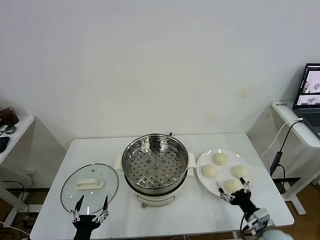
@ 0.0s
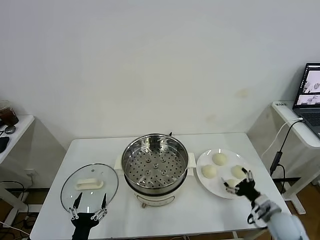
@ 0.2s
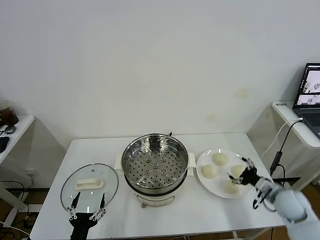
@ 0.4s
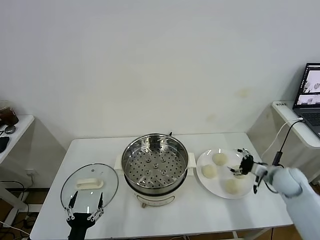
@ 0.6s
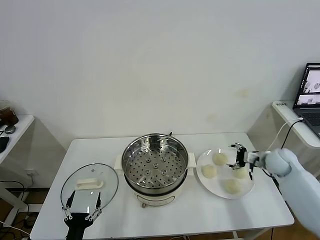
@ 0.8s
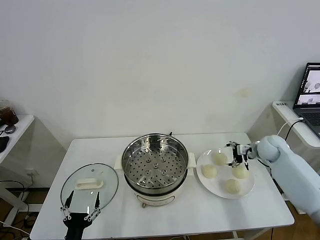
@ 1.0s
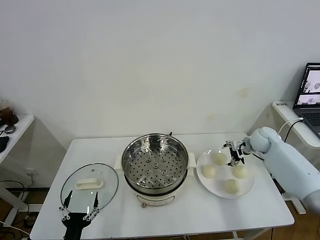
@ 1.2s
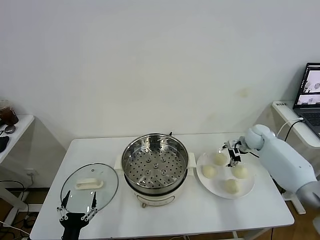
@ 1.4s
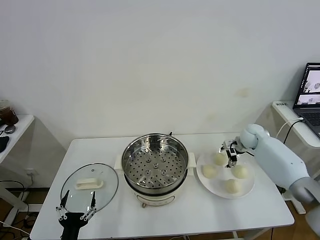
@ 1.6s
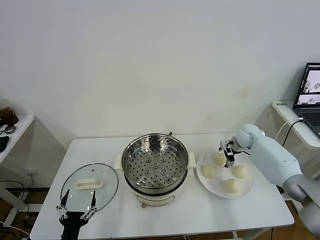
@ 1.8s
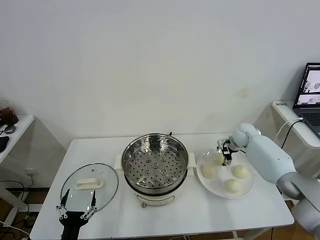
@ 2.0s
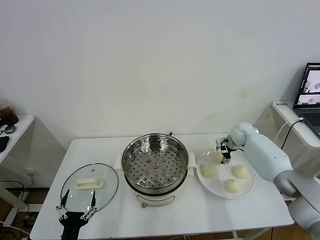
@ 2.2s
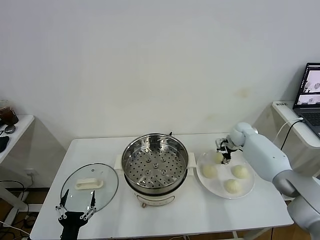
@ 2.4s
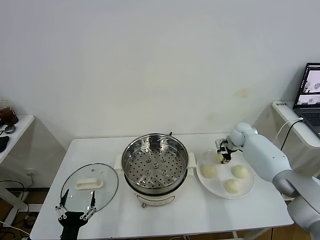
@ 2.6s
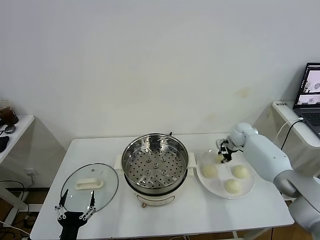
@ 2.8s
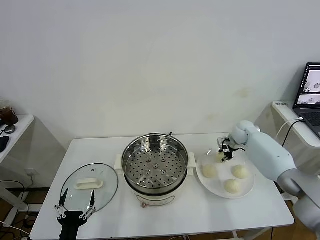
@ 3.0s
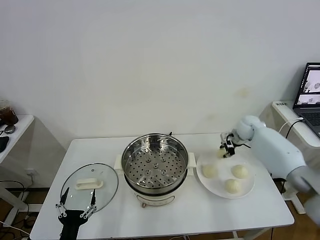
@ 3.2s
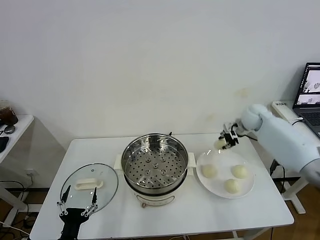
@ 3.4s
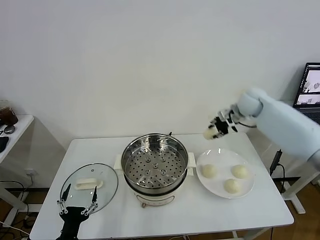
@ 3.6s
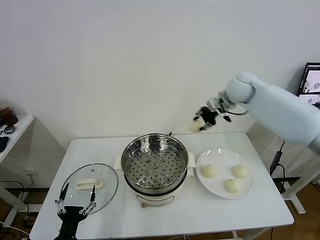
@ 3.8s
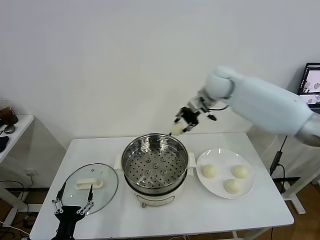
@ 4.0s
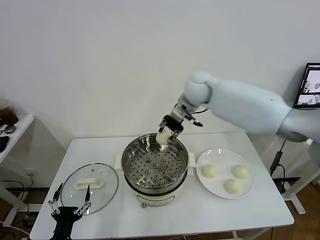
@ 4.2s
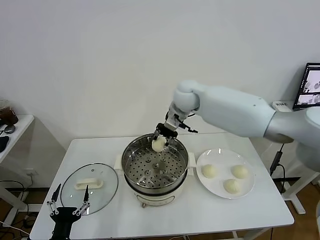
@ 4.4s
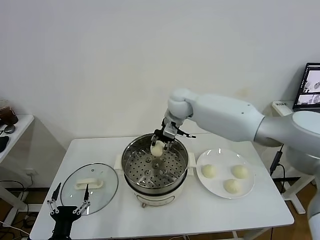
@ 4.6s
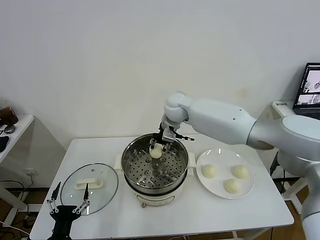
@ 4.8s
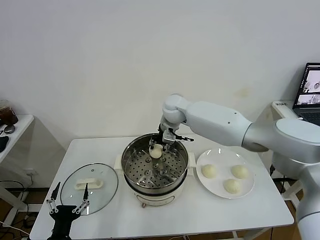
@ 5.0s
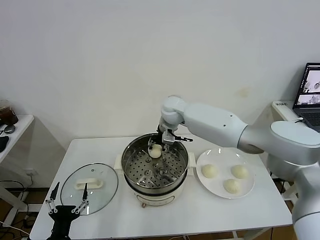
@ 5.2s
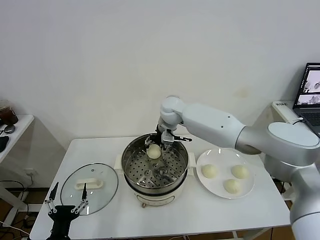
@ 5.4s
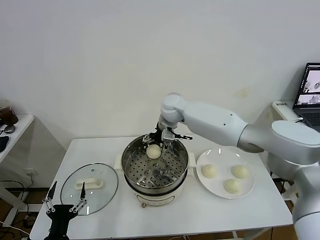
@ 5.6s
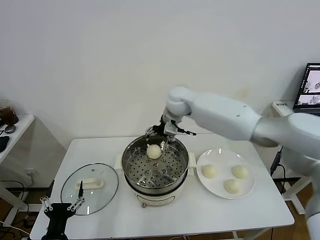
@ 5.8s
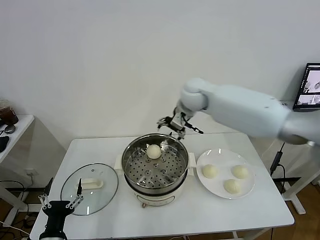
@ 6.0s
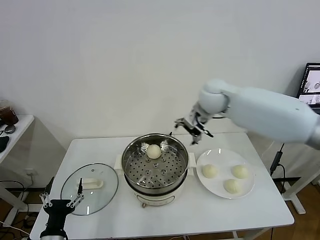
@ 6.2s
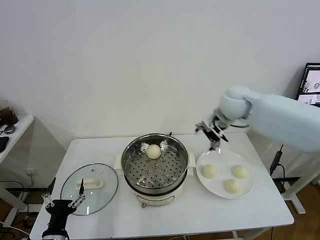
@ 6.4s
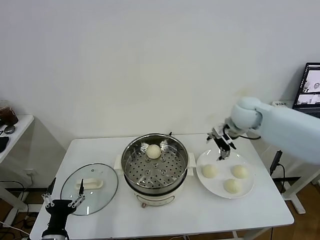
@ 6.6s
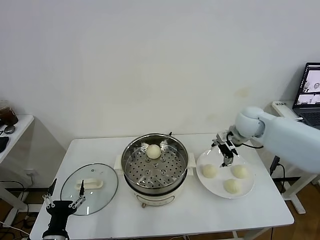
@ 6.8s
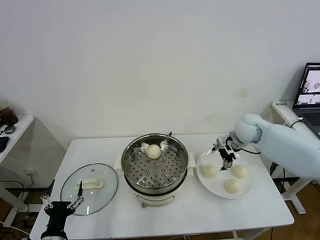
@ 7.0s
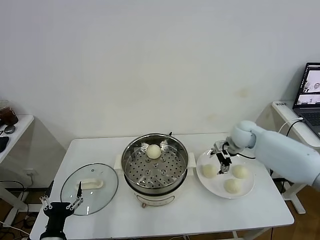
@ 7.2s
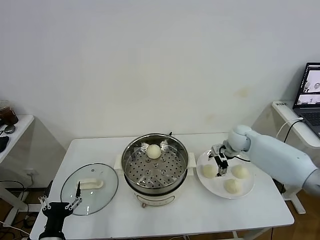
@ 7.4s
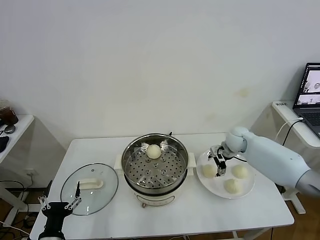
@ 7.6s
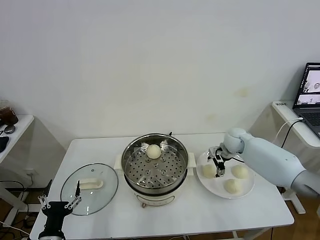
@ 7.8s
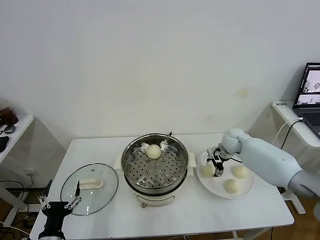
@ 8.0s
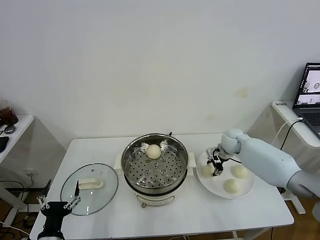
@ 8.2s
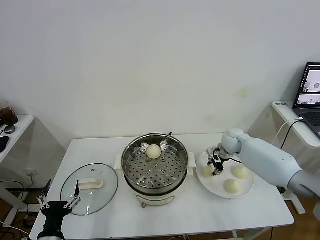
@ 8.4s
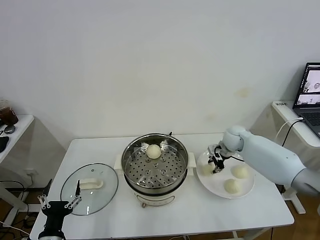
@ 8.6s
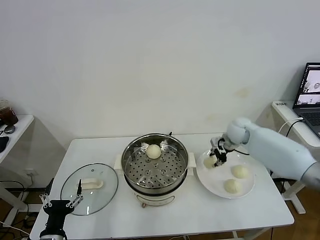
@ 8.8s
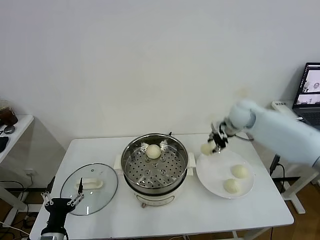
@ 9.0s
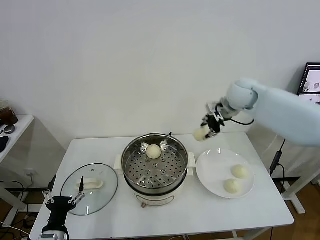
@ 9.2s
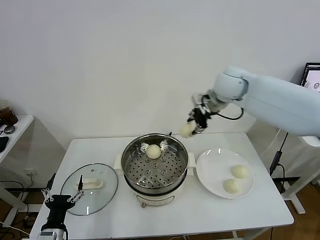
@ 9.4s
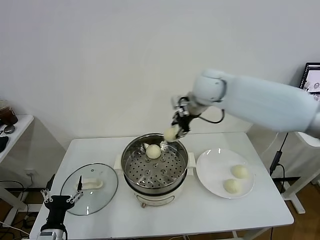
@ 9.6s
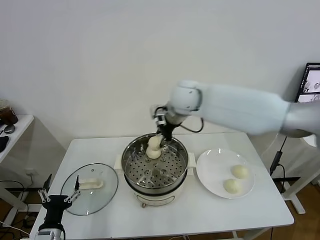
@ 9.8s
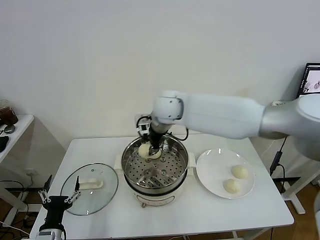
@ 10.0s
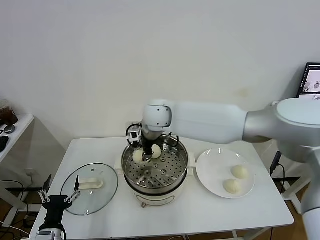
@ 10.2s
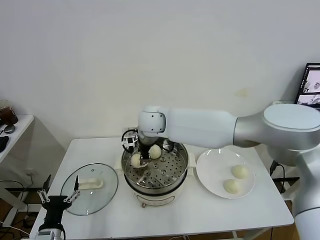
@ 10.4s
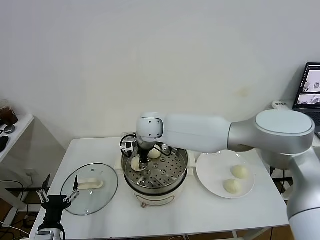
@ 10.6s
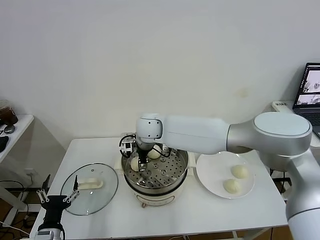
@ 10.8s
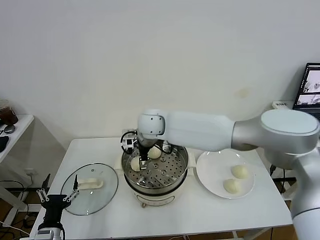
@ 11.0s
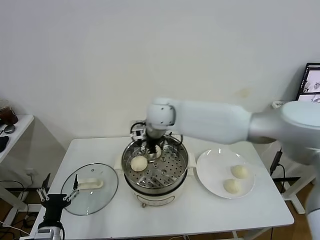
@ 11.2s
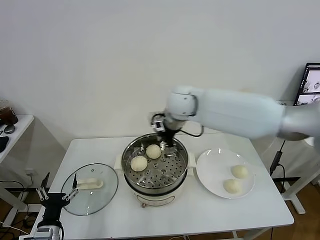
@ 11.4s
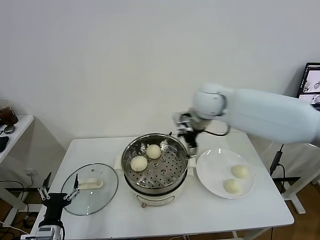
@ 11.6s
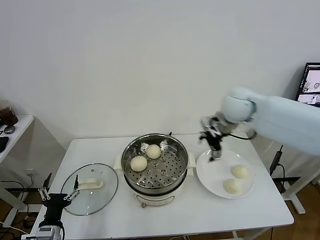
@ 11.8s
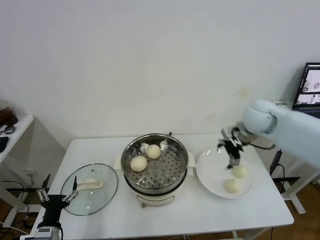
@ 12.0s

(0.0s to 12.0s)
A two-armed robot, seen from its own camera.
Task of the whole recording: take steamed baozi put them in steamer.
Step, 0.0s - 2.8s: Grasp the baozi in the plate with right gripper.
Step, 3.0s - 5.6s: Place the baozi on the steamer with right gripper.
Step, 5.8s - 8.4s: Grasp the baozi in the plate with right gripper.
Step, 8.6s - 11.0s: Place the baozi on the steamer with right gripper.
1.6s - 3.0s: The right gripper closes up.
3.0s - 4.4s: The right gripper goes approximately 35 cm to the left and upward.
4.4s - 6.0s: The right gripper reaches approximately 5 cm downward, then returns, and opens up.
6.0s - 7.6s: The right gripper shifts some 25 cm downward and to the right.
7.6s - 9.0s: The right gripper shifts approximately 10 cm upward, and closes its fingers.
9.0s - 10.4s: The right gripper is displaced to the left by some 30 cm.
10.4s - 12.0s: The right gripper goes roughly 35 cm to the right, and opens up.

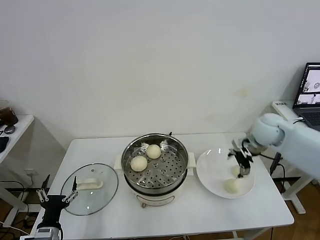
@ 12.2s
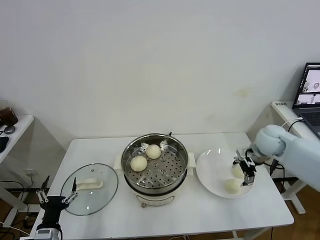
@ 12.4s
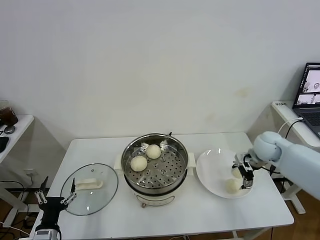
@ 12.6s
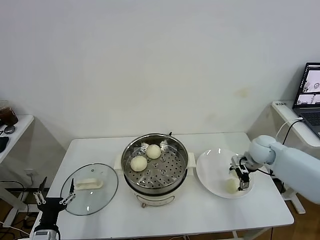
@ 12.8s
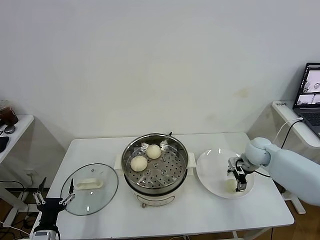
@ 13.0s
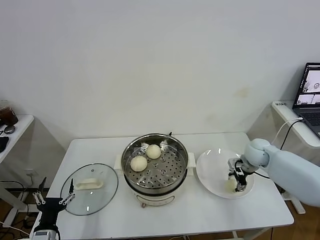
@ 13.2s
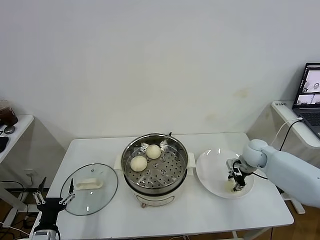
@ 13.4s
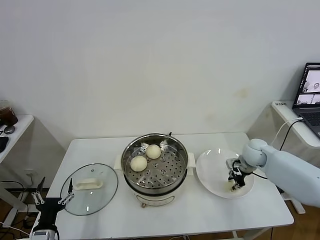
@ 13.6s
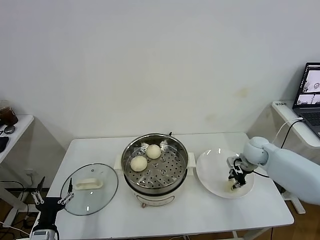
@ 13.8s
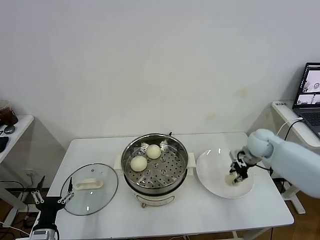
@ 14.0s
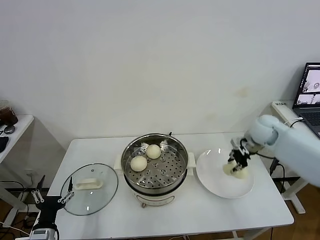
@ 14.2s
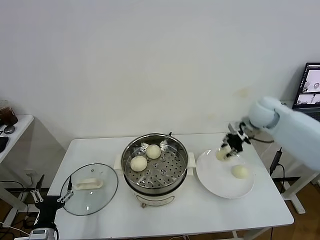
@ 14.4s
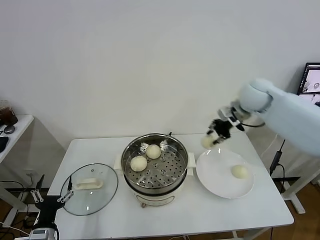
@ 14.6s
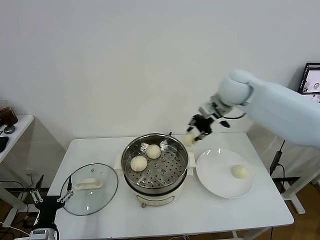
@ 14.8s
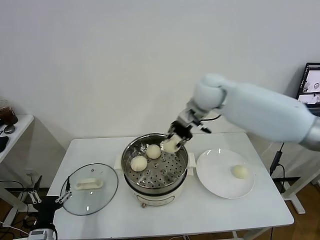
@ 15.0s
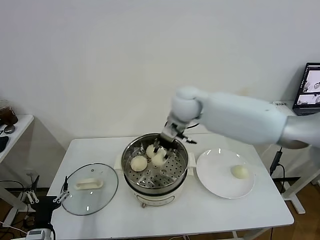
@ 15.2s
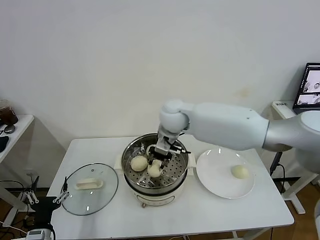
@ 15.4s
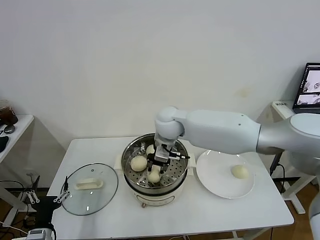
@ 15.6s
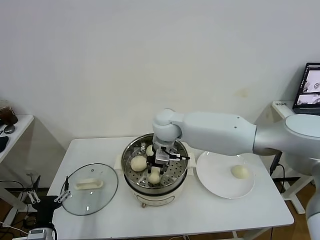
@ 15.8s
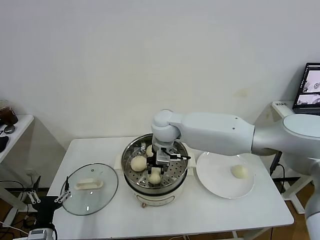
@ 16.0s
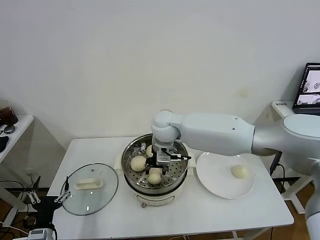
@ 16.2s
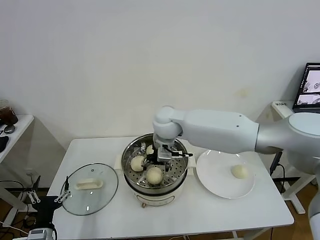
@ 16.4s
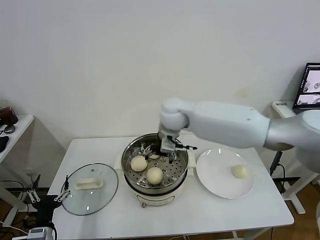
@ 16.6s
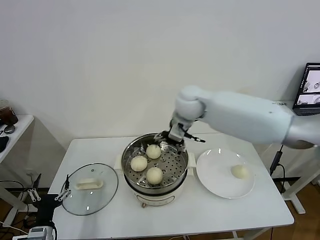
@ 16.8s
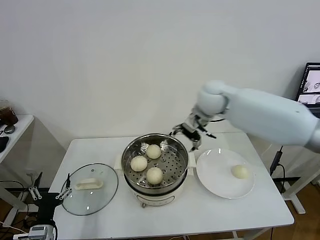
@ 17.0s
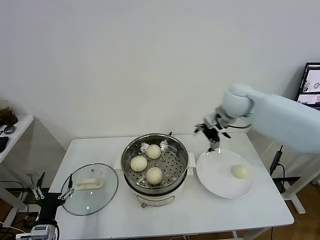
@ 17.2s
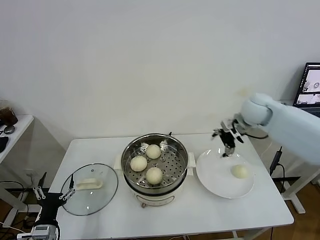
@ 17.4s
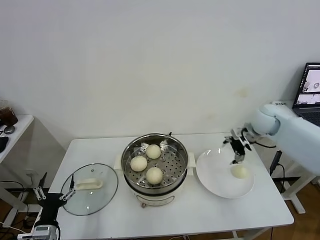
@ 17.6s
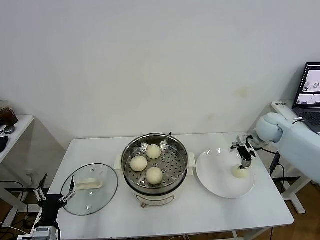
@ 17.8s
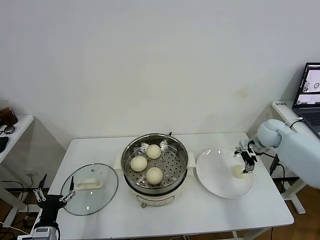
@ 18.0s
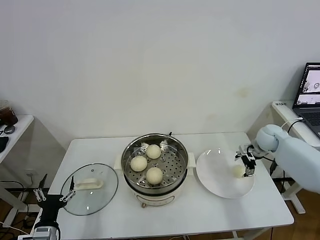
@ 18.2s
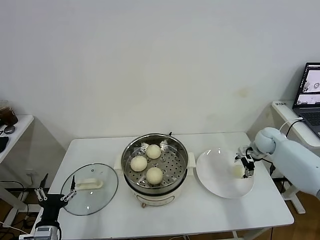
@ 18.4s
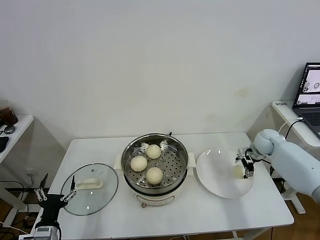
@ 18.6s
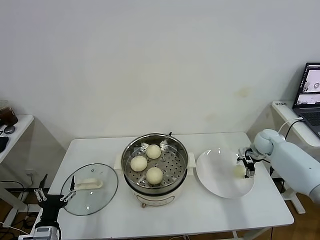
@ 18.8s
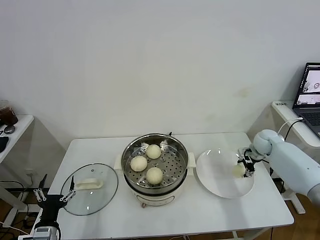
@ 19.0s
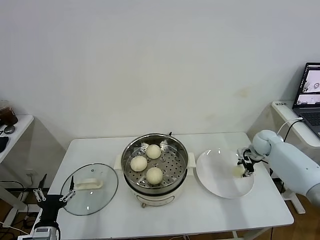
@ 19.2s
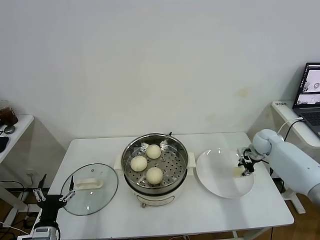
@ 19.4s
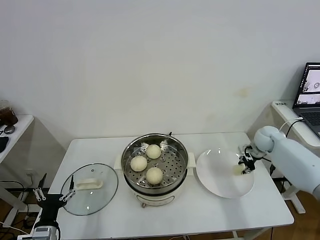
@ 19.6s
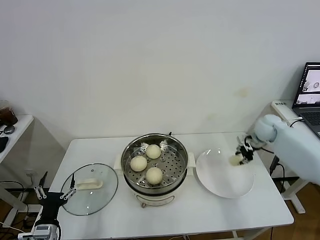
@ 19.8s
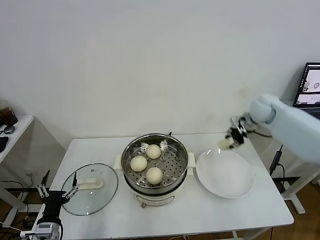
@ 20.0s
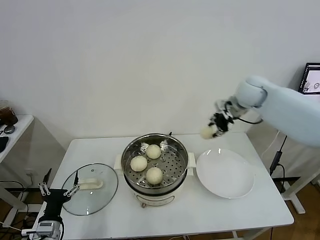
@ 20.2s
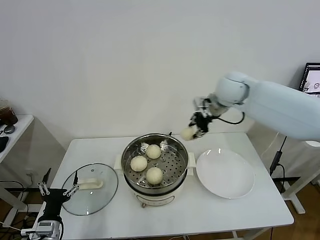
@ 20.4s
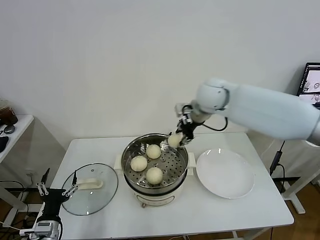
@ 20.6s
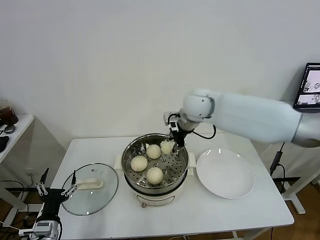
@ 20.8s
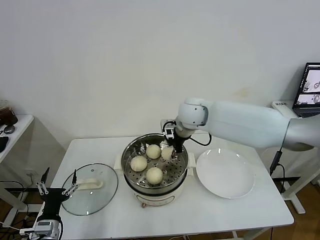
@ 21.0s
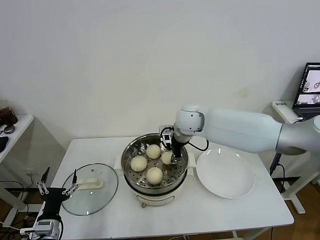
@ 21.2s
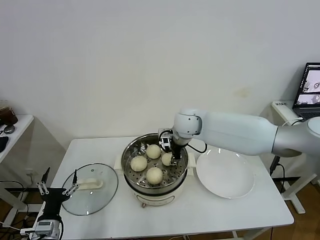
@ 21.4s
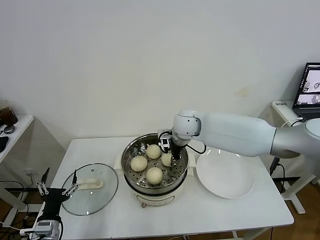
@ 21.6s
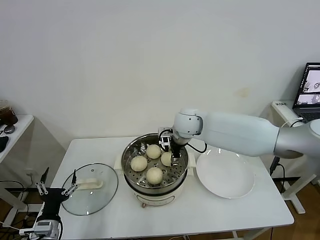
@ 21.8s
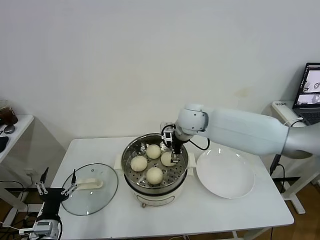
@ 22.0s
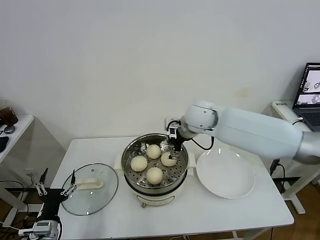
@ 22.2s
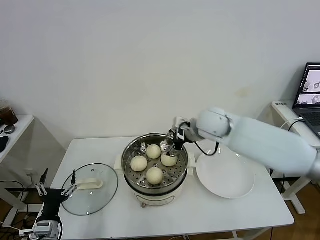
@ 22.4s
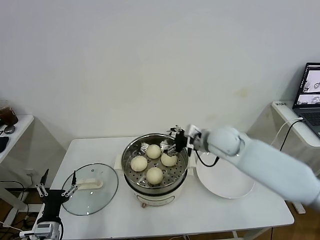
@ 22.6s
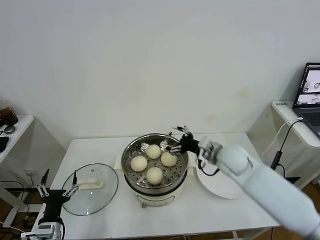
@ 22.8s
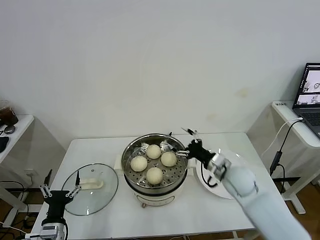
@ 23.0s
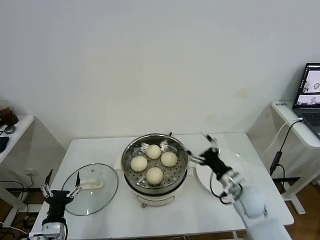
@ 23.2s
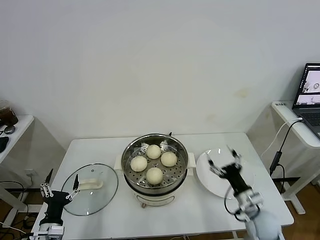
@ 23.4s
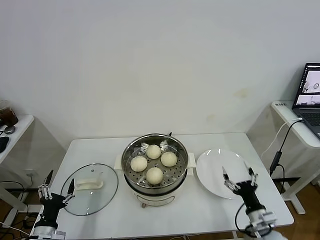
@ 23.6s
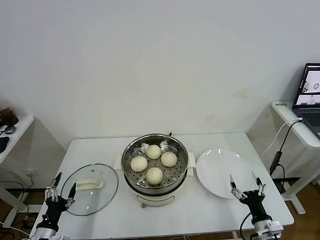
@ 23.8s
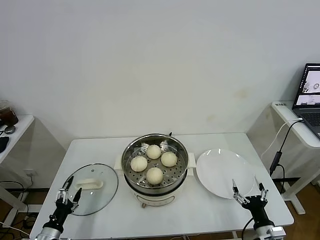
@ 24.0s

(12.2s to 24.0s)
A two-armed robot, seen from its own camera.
Task of the whole recording: take steamed baozi put them in steamer.
Step, 12.2s - 13.4s: Grasp the baozi in the plate with right gripper.
Step, 13.8s - 16.6s: Place the baozi on the steamer with right gripper.
Step, 16.8s - 19.4s: Grasp the baozi in the plate with right gripper.
Step, 19.6s - 22.0s: Place the baozi on the steamer with right gripper.
12.2s - 13.6s: The right gripper goes roughly 15 cm downward, and closes its fingers.
13.6s - 15.2s: The right gripper goes some 35 cm to the left and upward.
15.2s - 16.6s: The right gripper opens.
16.6s - 18.2s: The right gripper shifts some 35 cm to the right.
18.2s - 19.6s: The right gripper closes up.
19.6s - 21.0s: The right gripper travels to the left and upward by about 35 cm.
21.0s - 22.6s: The right gripper is displaced to the right and backward by roughly 10 cm, and opens up.
22.6s - 24.0s: The left gripper shifts by some 5 cm. Meanwhile the right gripper is displaced backward, downward and to the right by roughly 40 cm.
